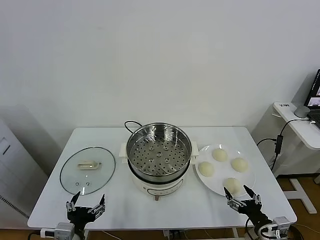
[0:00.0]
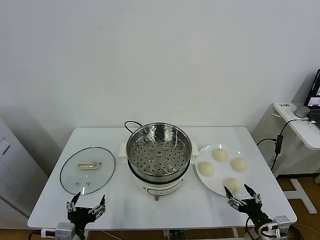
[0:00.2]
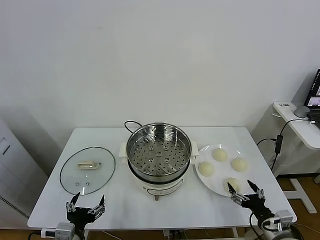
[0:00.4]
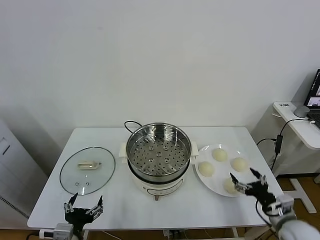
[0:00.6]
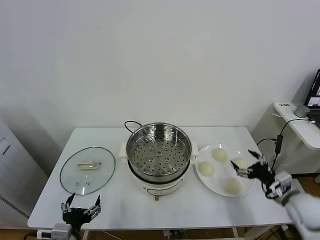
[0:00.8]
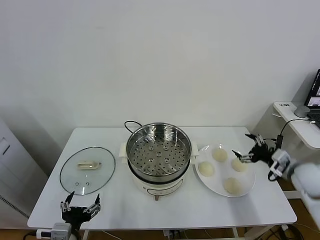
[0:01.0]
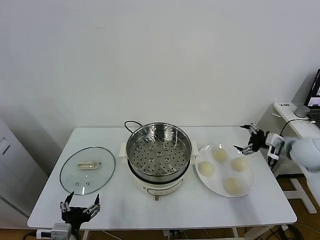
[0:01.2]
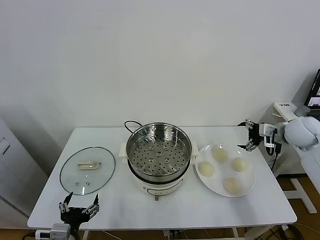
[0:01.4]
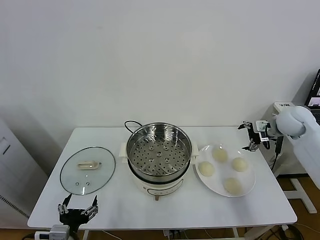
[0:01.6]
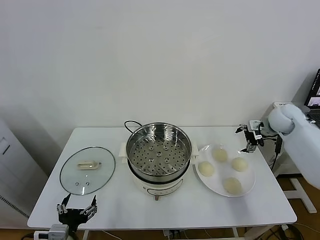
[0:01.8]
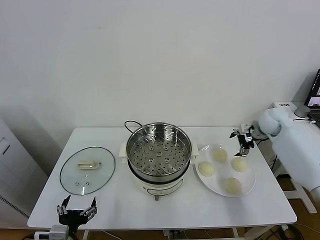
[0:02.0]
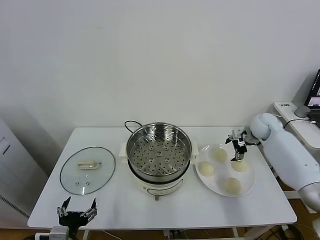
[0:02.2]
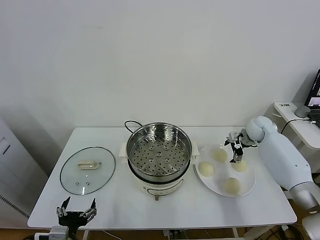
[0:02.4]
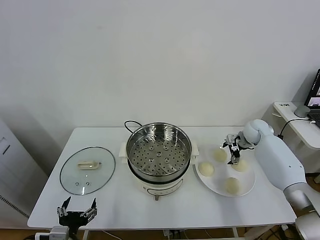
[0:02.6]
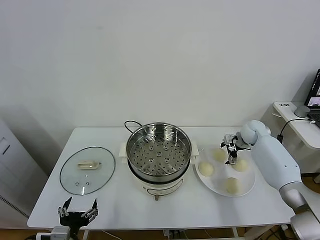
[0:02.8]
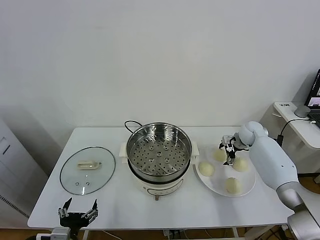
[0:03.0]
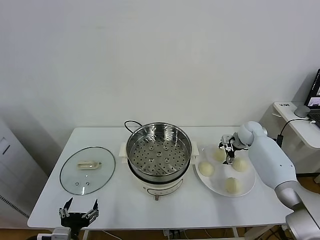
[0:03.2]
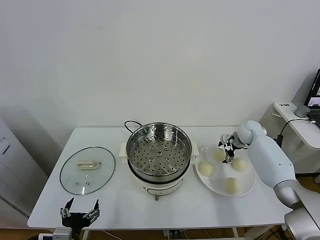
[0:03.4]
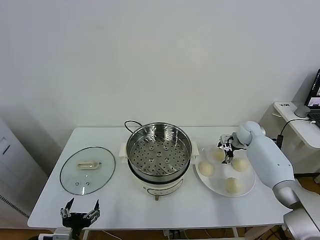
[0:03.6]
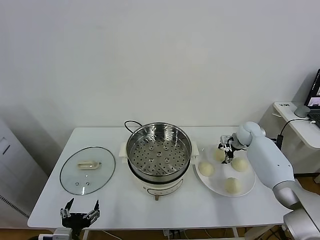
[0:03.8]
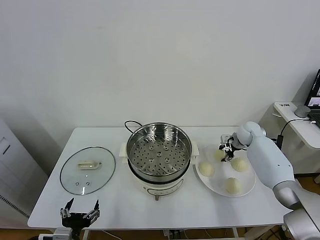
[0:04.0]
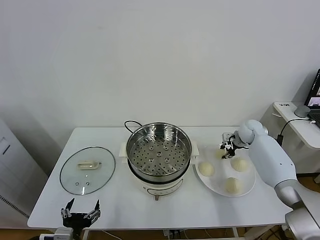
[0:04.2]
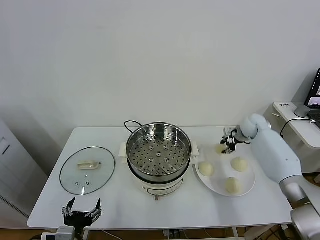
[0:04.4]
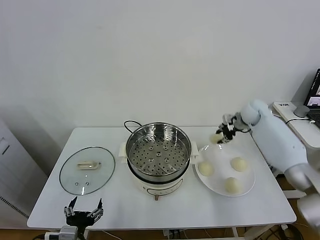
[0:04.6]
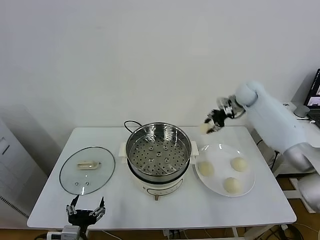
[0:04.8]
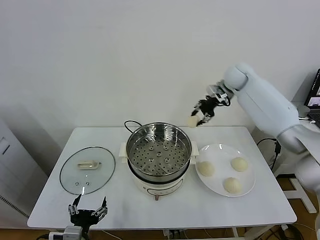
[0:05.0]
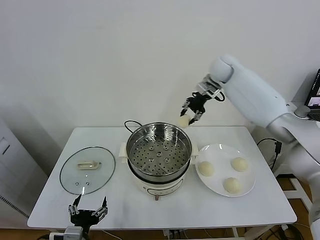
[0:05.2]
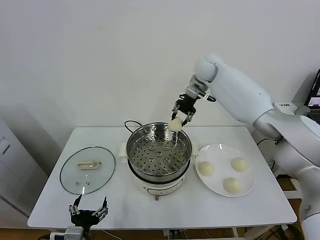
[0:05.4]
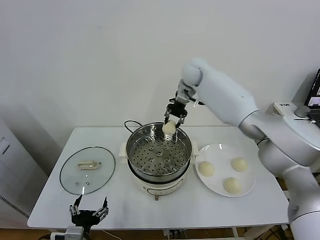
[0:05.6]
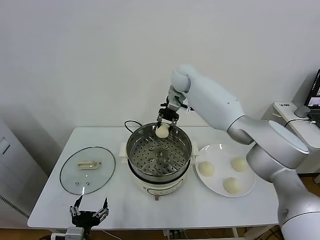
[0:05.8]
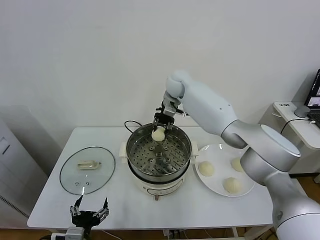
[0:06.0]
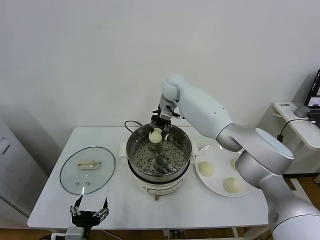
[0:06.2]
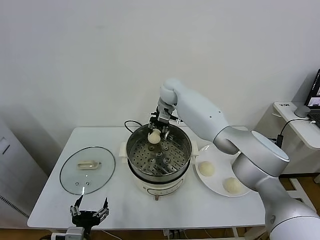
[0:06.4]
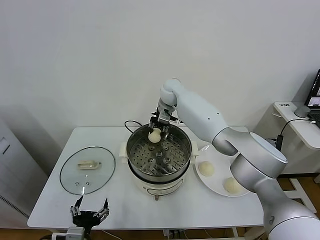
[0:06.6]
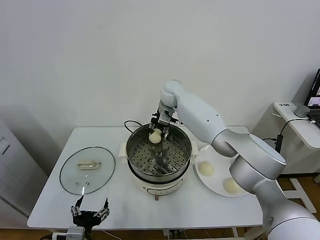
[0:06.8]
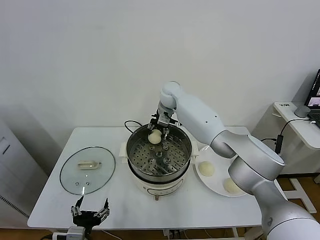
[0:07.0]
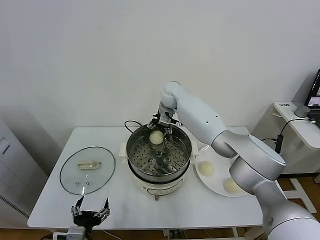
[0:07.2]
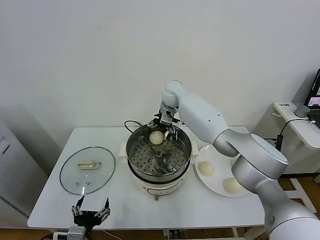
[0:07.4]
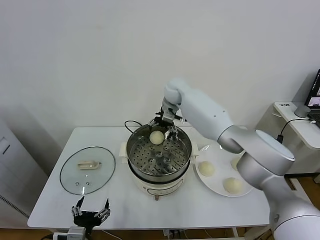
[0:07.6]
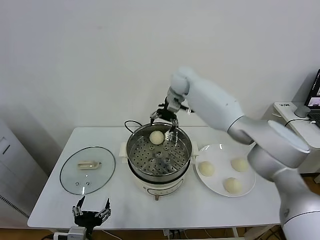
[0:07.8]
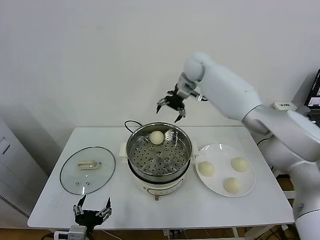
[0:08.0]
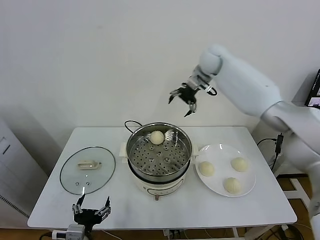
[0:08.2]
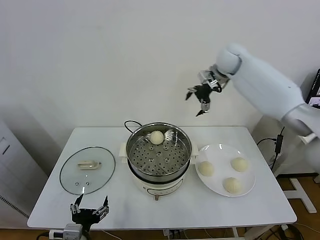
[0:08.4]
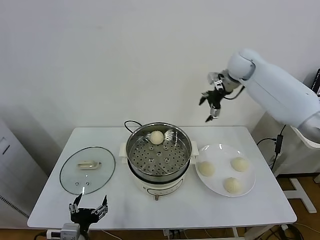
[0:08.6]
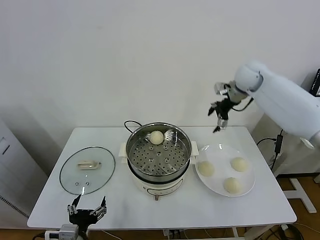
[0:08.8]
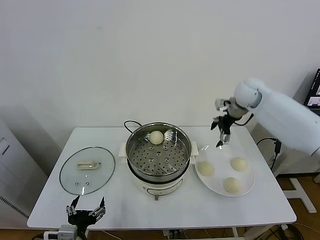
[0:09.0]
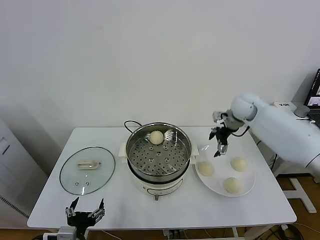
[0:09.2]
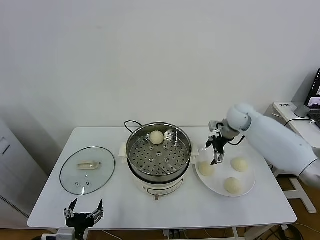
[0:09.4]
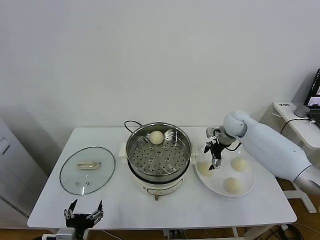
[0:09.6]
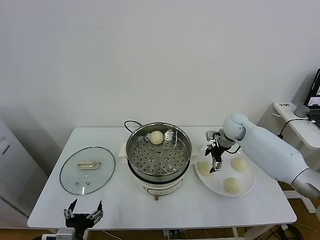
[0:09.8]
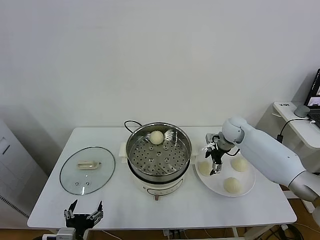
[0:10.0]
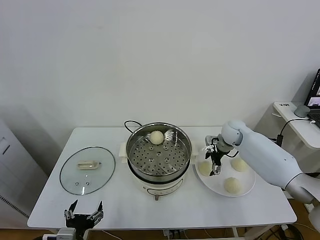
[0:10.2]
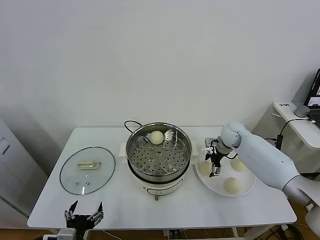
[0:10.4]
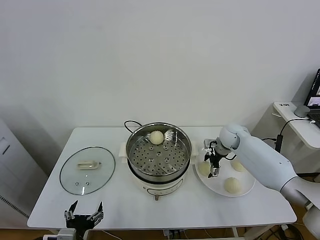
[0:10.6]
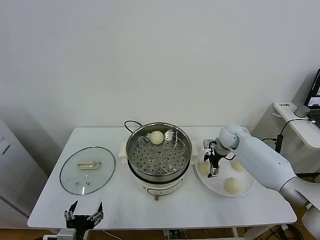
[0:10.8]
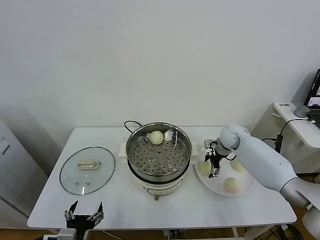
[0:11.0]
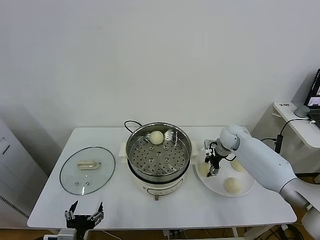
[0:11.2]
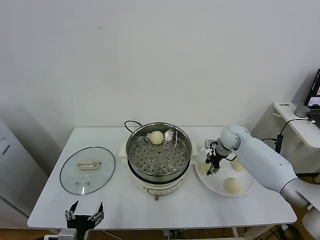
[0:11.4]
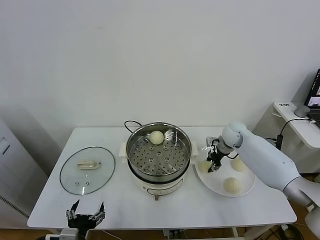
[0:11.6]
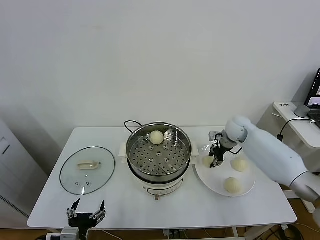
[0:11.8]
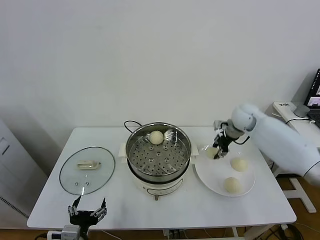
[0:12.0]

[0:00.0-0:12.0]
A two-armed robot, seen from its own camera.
Task of the whole recording: take steamed baozi put them in steamer.
Step, 0.0 to 4.0 s: Grasp the baozi in the plate with right gripper.
Step, 4.2 to 7.8 s: Place the baozi on the steamer with right gripper.
Step, 8.0 to 11.2 s: Grasp the baozi in the plate with right gripper.
1.6 to 3.0 s: The right gripper goes approximately 15 cm downward and forward.
3.0 to 4.4 s: The right gripper is displaced upward by roughly 5 cm, and closes.
4.4 to 6.0 s: The right gripper is displaced to the left and upward by about 35 cm.
6.0 to 7.6 s: The right gripper opens up.
7.6 to 9.0 s: The right gripper travels to the right by approximately 25 cm.
9.0 to 10.4 s: The right gripper travels downward by about 15 cm.
10.4 to 12.0 s: The right gripper travels upward by approximately 10 cm, and closes.

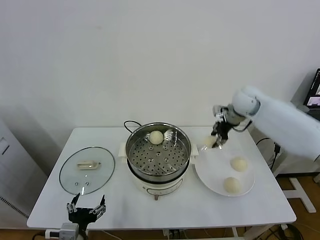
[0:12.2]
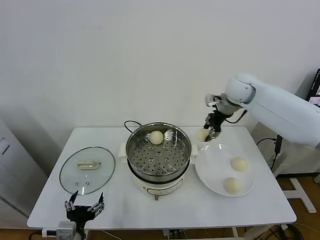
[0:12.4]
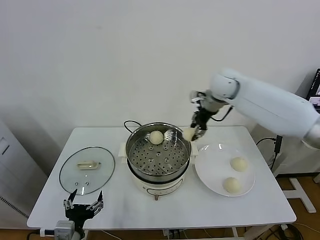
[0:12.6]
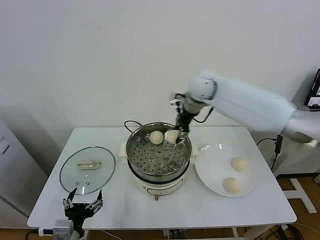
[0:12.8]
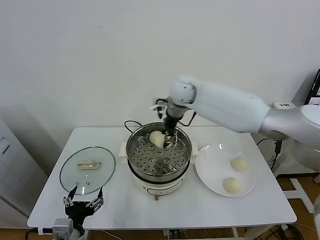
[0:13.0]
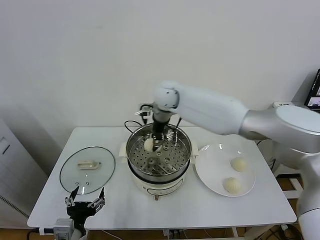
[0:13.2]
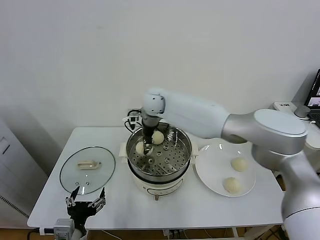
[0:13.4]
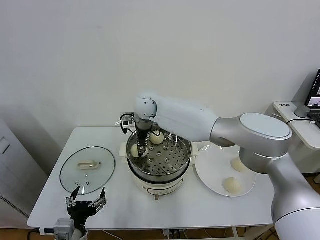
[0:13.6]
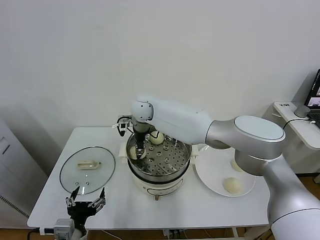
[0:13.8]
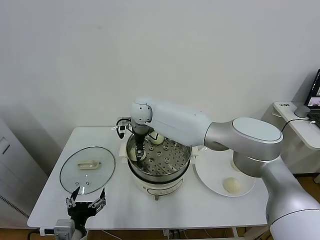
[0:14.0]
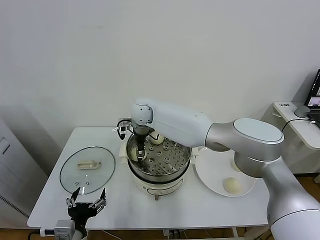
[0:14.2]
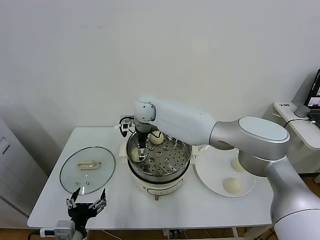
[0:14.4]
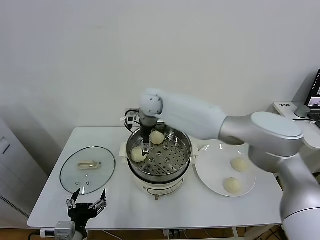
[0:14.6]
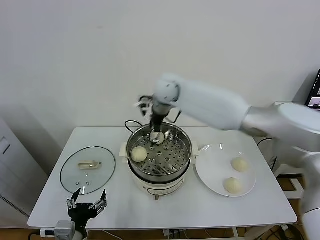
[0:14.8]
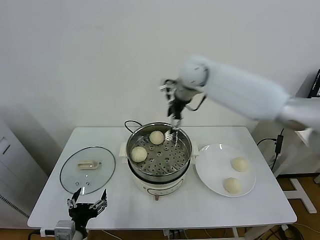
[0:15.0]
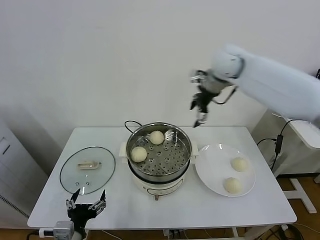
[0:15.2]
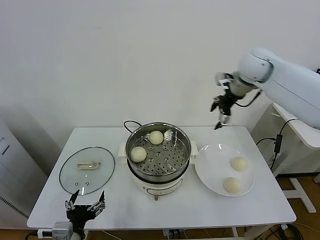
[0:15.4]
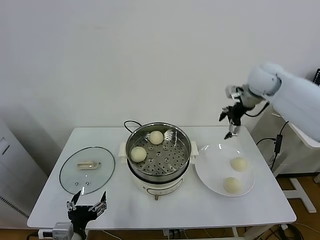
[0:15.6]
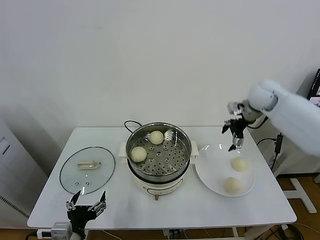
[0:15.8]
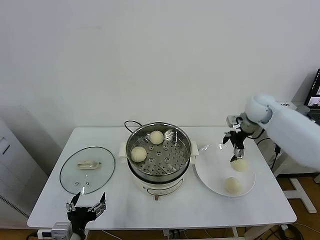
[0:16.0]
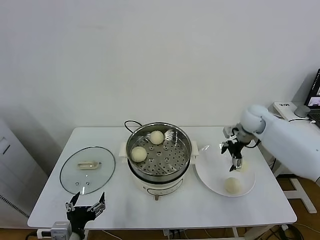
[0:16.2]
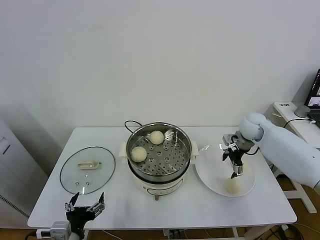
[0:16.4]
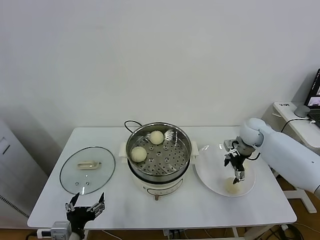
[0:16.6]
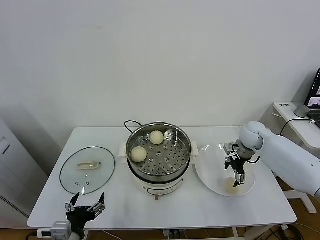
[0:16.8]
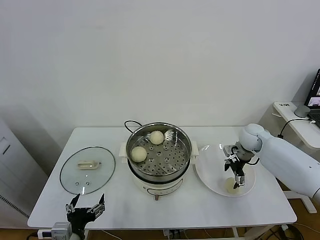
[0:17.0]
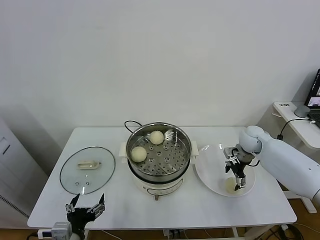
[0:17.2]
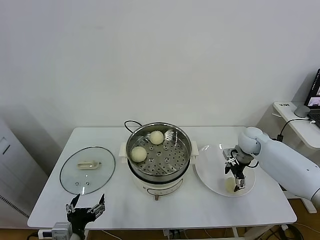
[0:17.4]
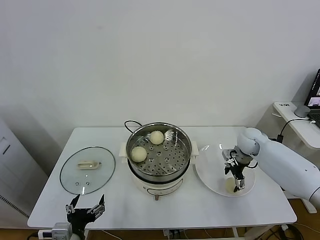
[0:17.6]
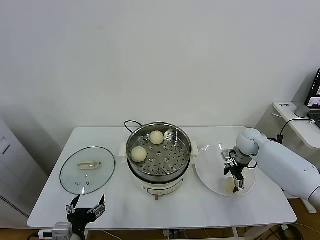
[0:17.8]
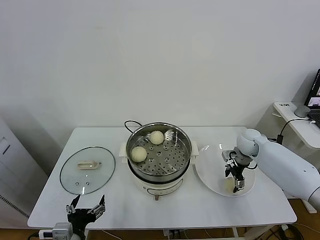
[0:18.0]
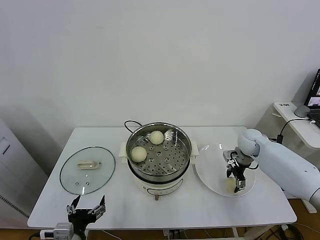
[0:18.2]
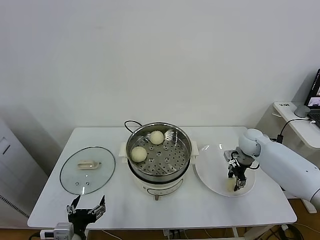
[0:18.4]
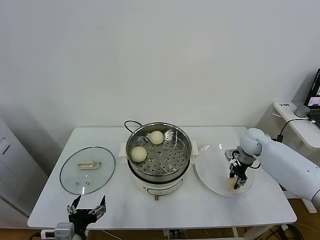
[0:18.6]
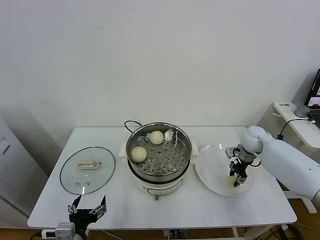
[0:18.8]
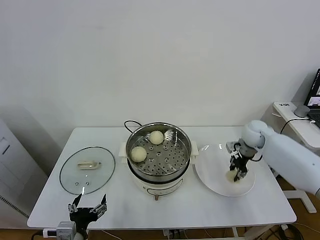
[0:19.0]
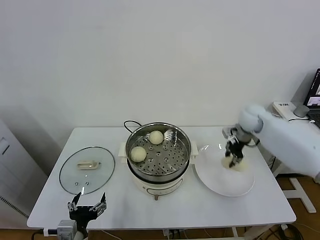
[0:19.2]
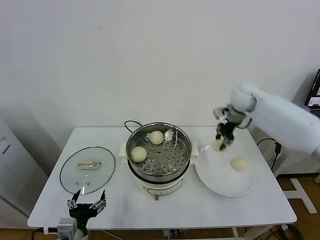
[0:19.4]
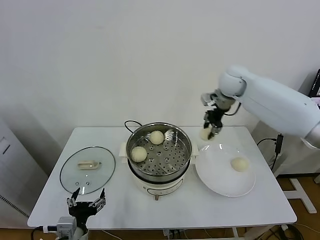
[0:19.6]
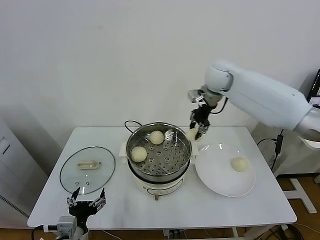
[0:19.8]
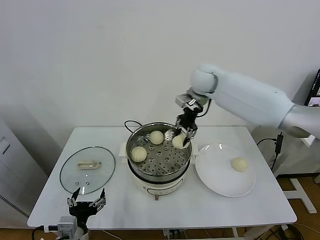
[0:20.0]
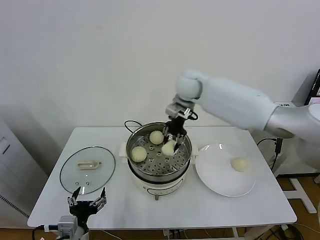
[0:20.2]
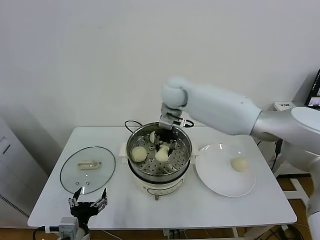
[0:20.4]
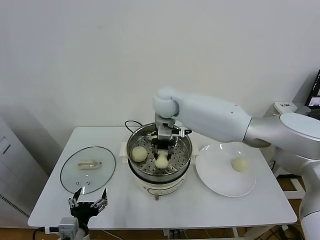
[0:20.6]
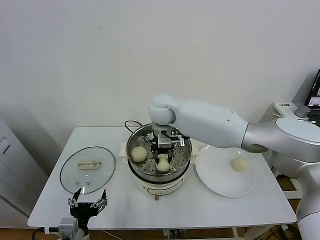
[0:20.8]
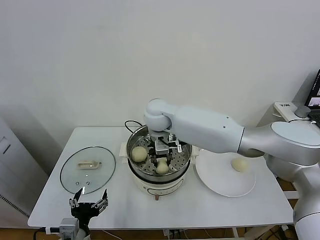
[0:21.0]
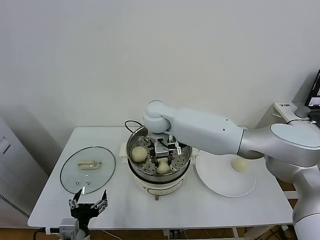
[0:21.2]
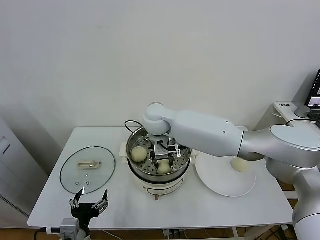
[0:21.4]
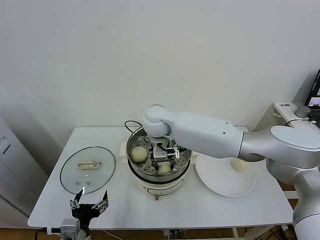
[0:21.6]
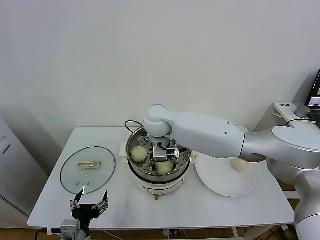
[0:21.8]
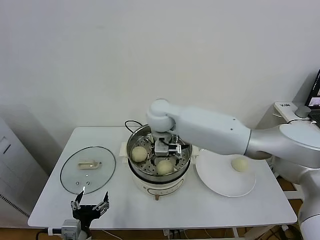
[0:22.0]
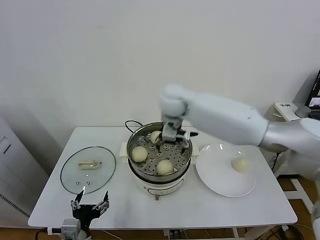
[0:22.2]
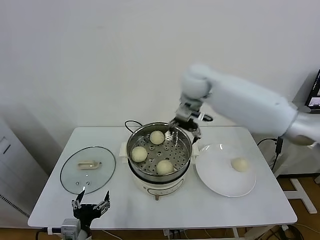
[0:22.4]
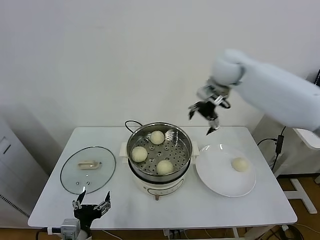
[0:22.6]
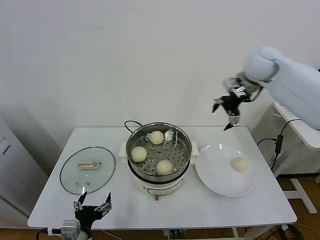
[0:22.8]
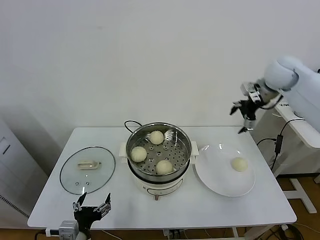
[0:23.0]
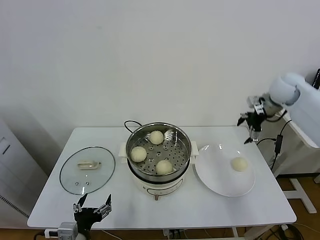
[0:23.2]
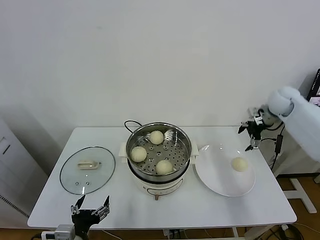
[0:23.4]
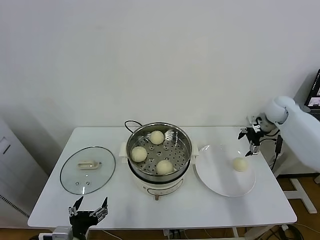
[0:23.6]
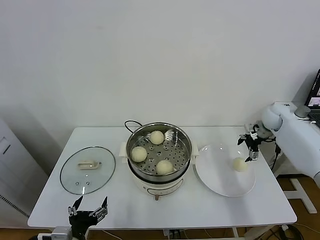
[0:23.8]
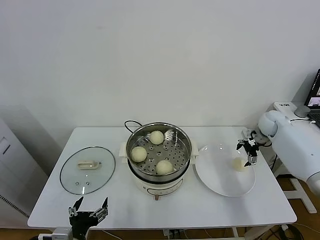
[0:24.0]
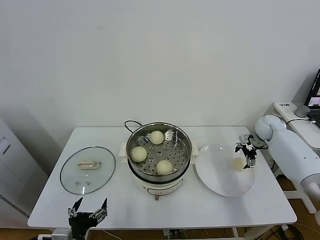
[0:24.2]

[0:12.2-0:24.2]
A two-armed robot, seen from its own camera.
Task of the whole recording: take steamed baozi put them in steamer.
Step, 12.2 to 14.8 s: Place the baozi on the steamer with right gripper.
Step, 15.0 to 18.4 s: Grasp the baozi in the plate with right gripper.
Step, 18.6 to 22.0 s: Place the baozi on the steamer with right gripper.
12.2 to 13.8 s: The right gripper moves to the left, some 35 cm.
13.8 to 15.2 s: The right gripper shifts roughly 30 cm to the right and upward, and opens.
15.2 to 16.6 s: The right gripper travels downward and to the right by some 30 cm.
16.6 to 18.2 s: The grippers move only a little.
18.2 to 19.8 s: The right gripper is displaced upward and to the left by roughly 30 cm, and closes.
19.8 to 21.2 s: The right gripper moves to the left, downward and backward, about 25 cm.
21.2 to 22.6 s: The right gripper shifts roughly 25 cm to the right and upward, and opens up.
22.6 to 24.2 s: The right gripper goes roughly 35 cm downward and to the right.
